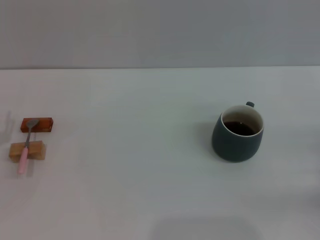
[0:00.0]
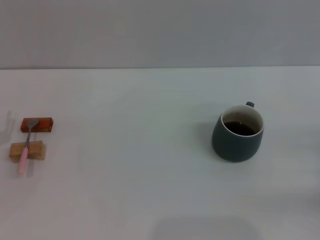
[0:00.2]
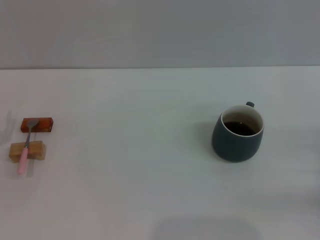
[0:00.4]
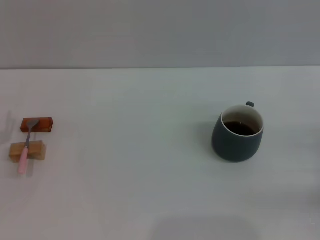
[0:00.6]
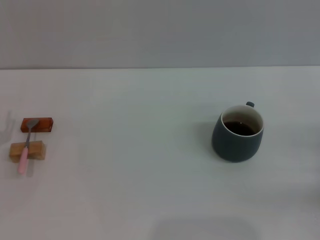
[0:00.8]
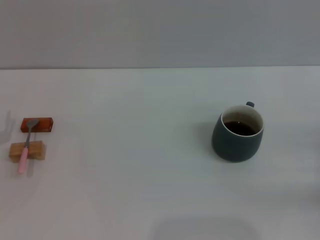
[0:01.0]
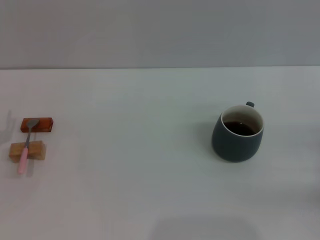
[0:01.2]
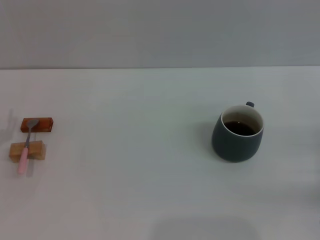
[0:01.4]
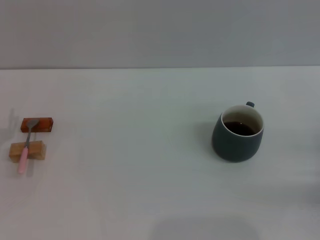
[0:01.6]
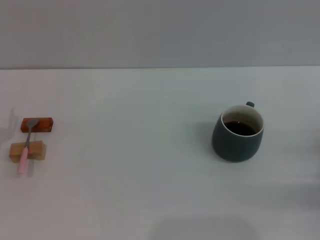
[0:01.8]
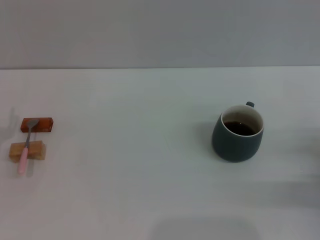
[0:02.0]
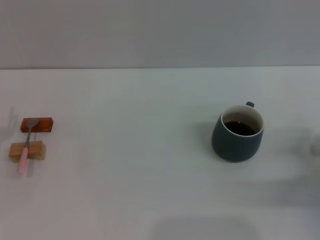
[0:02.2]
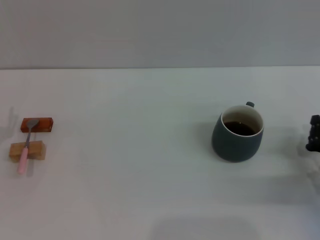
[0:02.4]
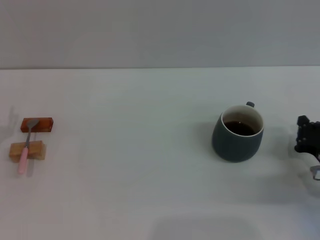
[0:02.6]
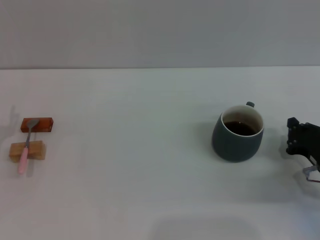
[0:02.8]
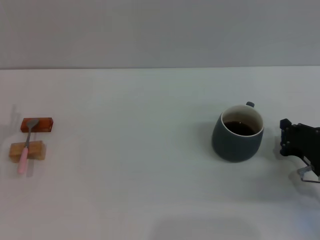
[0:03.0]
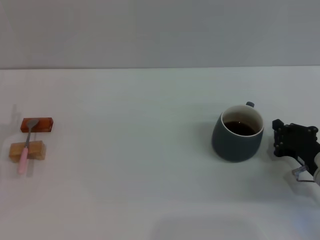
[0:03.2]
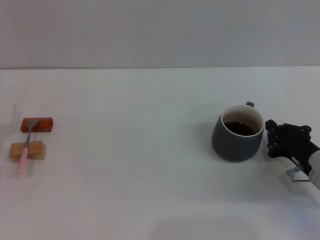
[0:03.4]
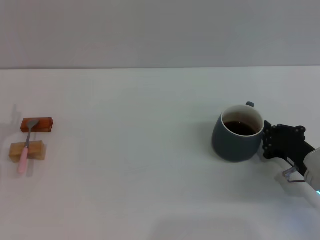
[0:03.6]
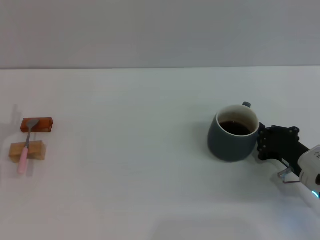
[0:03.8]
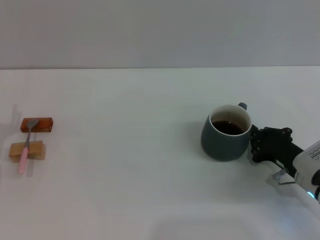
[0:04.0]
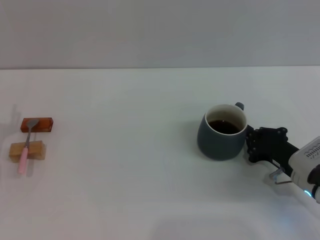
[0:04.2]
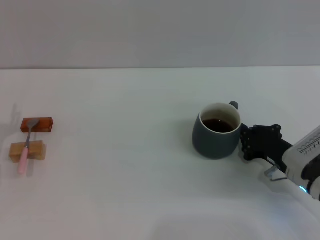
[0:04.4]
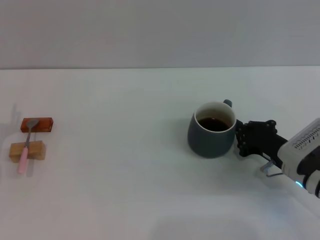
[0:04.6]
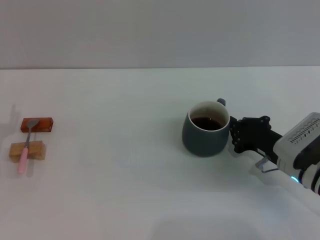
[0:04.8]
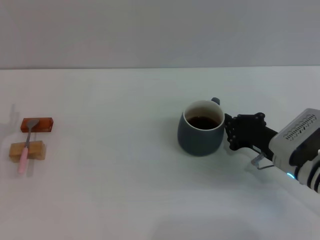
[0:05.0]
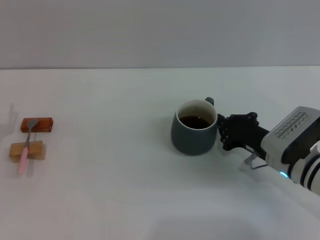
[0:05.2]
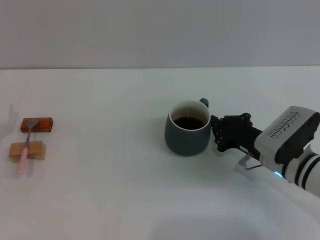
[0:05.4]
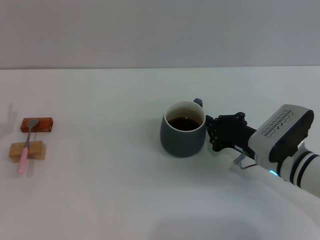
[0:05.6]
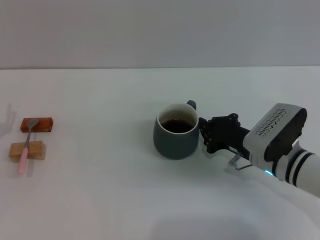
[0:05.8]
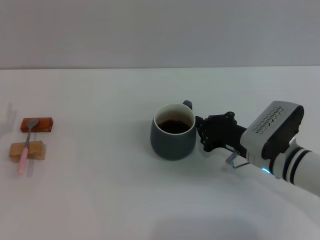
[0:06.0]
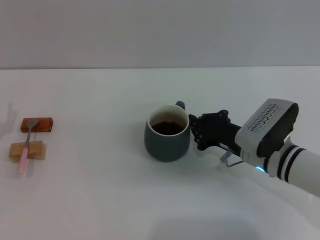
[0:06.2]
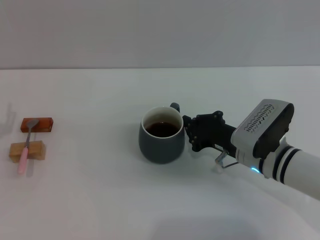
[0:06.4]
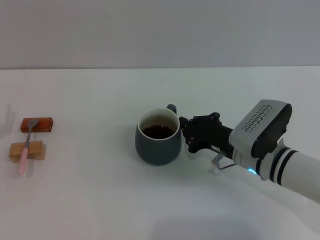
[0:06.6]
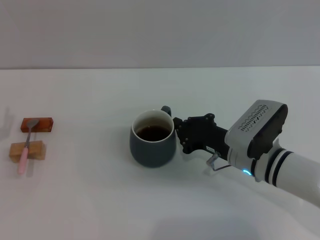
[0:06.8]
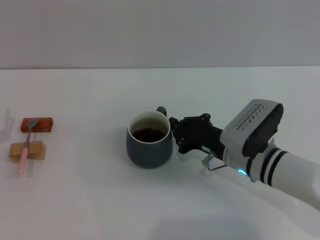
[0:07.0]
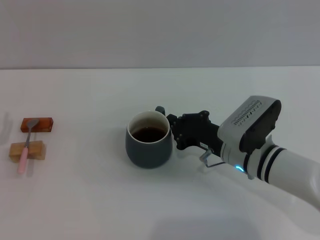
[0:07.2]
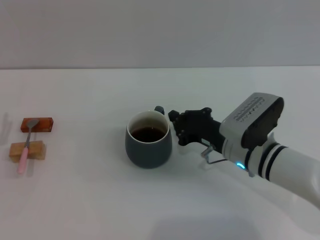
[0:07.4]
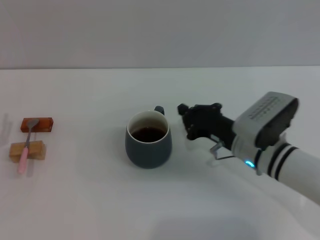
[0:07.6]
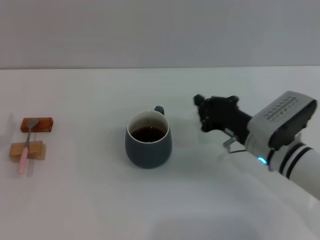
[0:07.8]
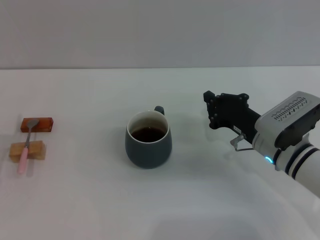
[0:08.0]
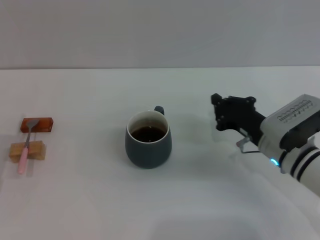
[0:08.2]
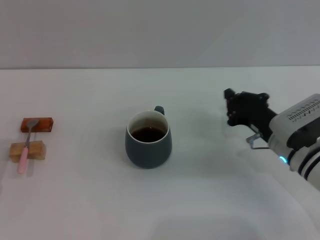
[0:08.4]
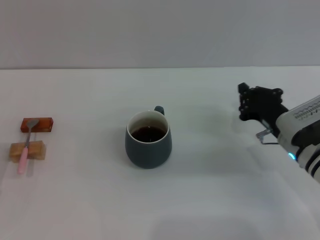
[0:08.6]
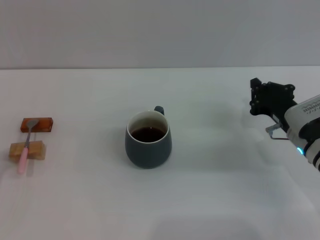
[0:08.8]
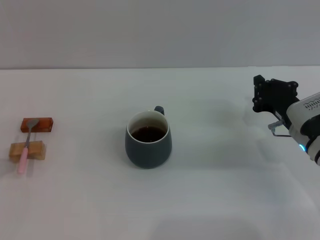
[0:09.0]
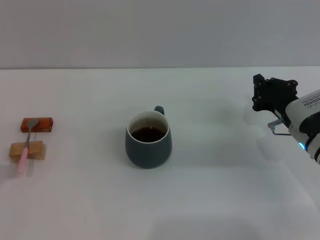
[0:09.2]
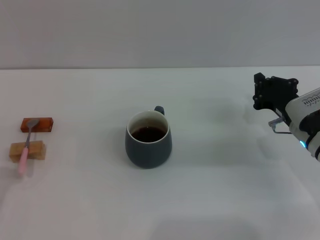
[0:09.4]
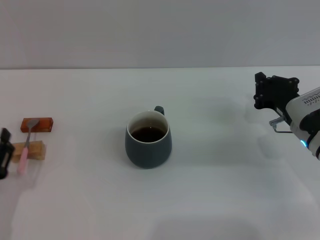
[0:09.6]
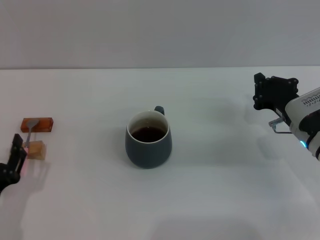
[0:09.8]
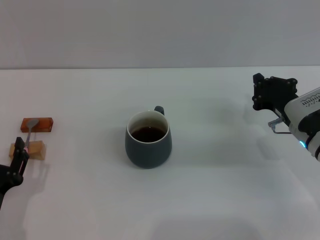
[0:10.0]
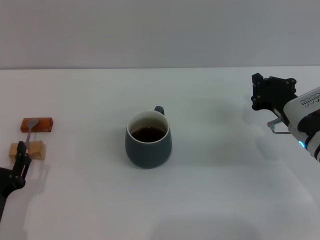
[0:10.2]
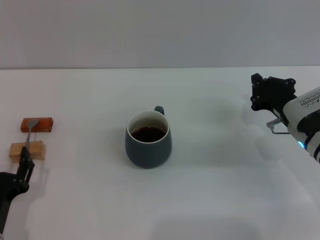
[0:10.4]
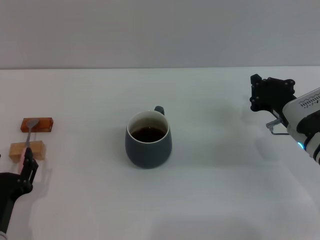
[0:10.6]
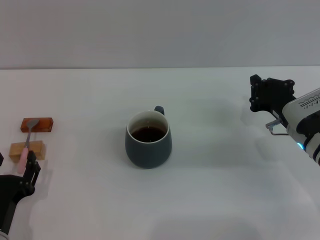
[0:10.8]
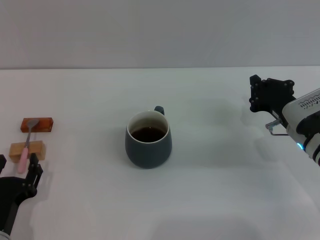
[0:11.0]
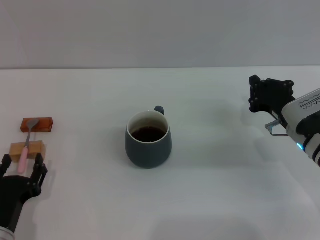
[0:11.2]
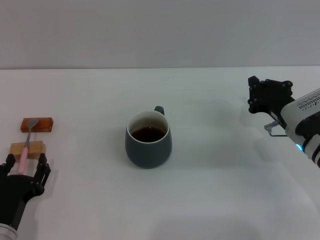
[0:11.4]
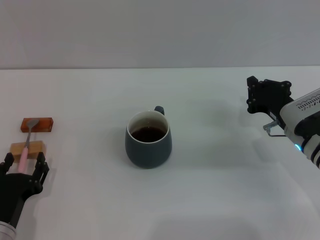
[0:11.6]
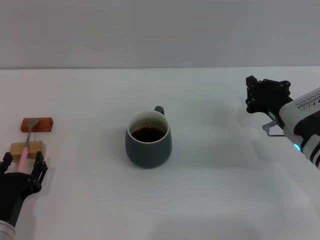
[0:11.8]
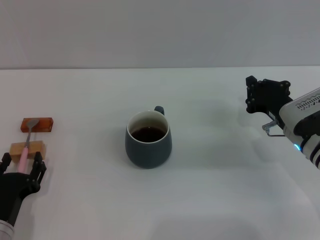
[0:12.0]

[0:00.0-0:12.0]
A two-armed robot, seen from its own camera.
Task of the whole recording: Move the grey cup to the center, lift the pink spoon, stir it three times in the cup, and put the spoon into the cup.
Step, 0:00.0 to 0:08.6: Move the cup with coffee to the center of view with the right gripper.
0:01.6 to 0:03.0: The right gripper goes roughly 10 cm to the left, and closes.
0:03.0 to 0:04.4: The grippers make only small movements.
0:04.4 to 0:06.0: The right gripper goes roughly 5 cm to the left.
0:06.0 to 0:07.6: The grippers stay close to where they were, moving slightly.
0:07.6 to 0:09.0: The right gripper goes about 10 cm to the right. The left gripper heads backward, covering some 5 cm.
0:09.0 to 0:10.4: The left gripper shifts about 5 cm to the right.
0:10.4 to 0:12.0: There are only small adjustments of the grippers.

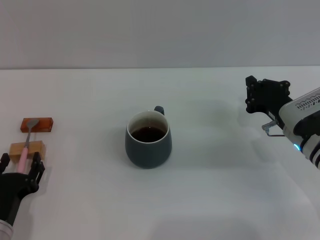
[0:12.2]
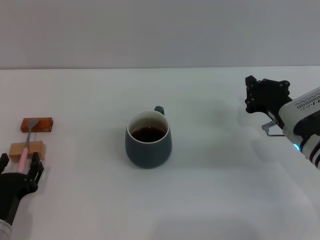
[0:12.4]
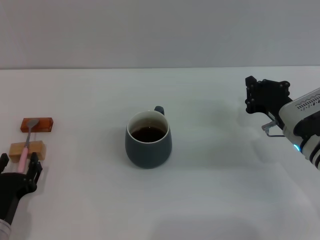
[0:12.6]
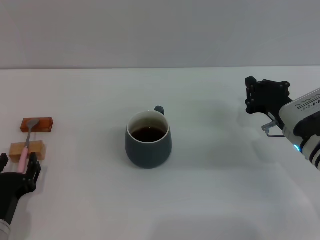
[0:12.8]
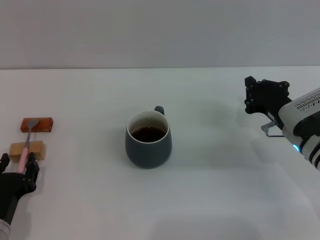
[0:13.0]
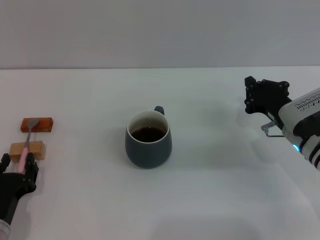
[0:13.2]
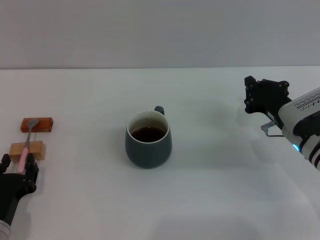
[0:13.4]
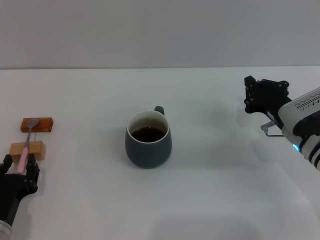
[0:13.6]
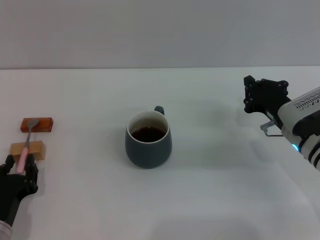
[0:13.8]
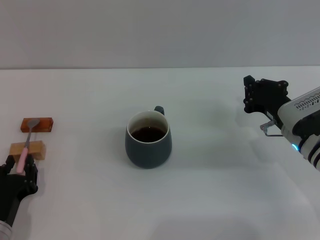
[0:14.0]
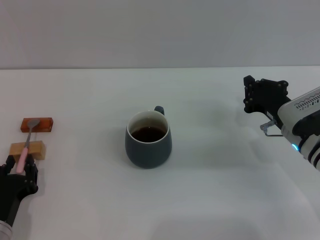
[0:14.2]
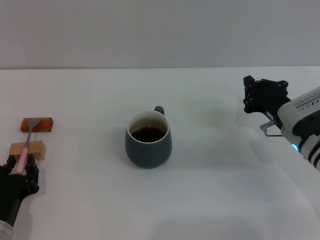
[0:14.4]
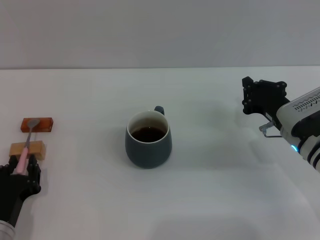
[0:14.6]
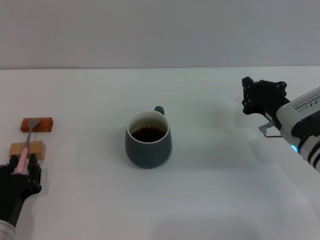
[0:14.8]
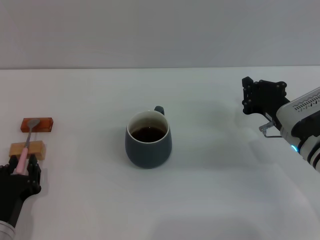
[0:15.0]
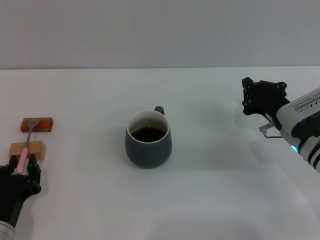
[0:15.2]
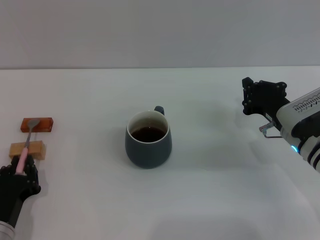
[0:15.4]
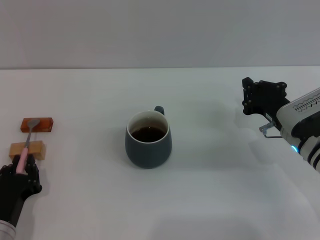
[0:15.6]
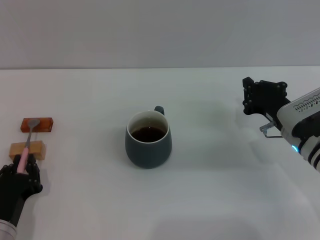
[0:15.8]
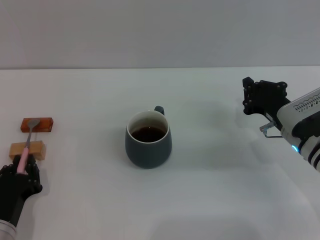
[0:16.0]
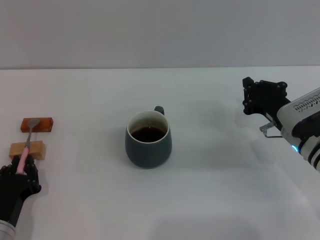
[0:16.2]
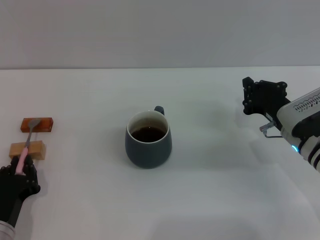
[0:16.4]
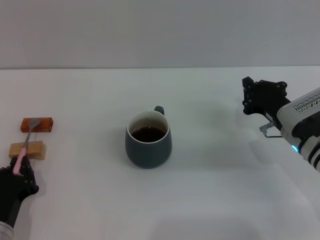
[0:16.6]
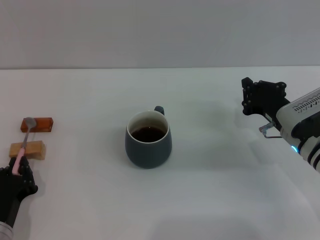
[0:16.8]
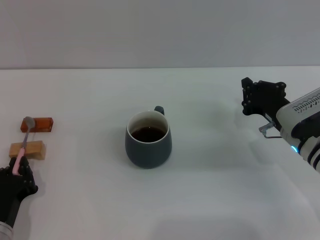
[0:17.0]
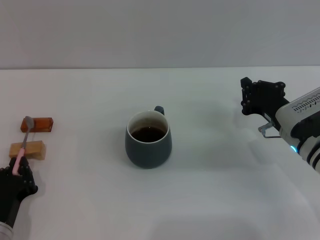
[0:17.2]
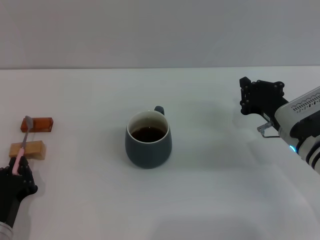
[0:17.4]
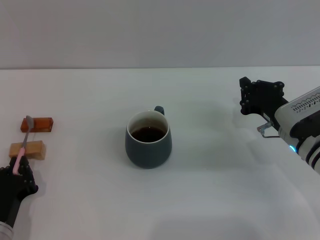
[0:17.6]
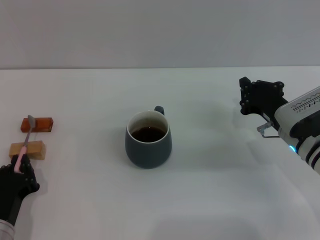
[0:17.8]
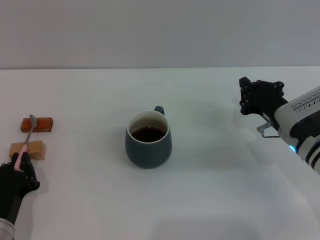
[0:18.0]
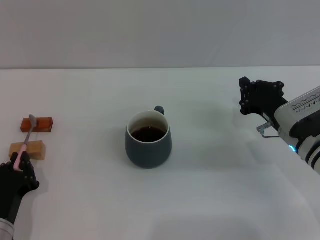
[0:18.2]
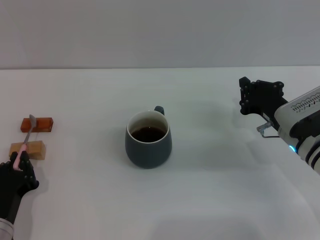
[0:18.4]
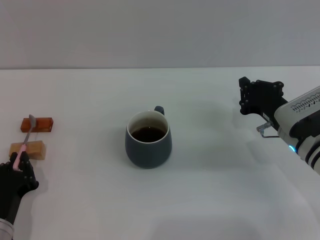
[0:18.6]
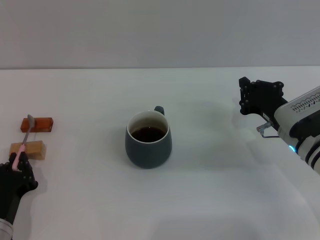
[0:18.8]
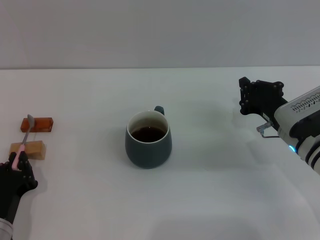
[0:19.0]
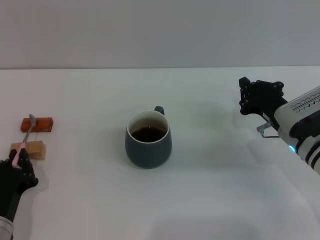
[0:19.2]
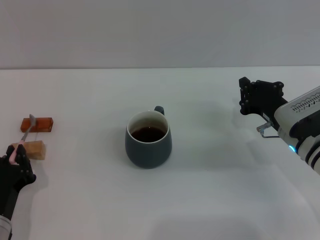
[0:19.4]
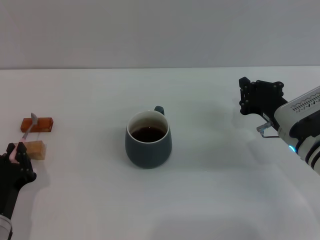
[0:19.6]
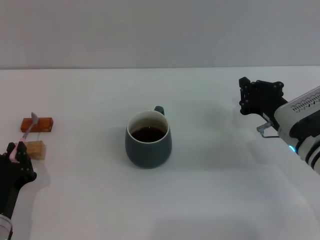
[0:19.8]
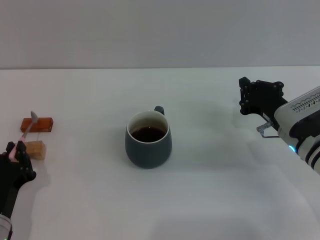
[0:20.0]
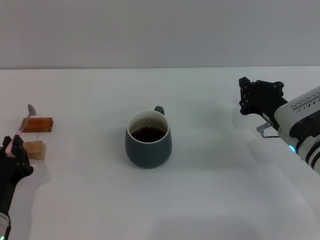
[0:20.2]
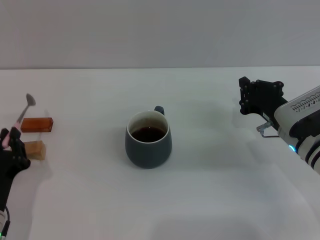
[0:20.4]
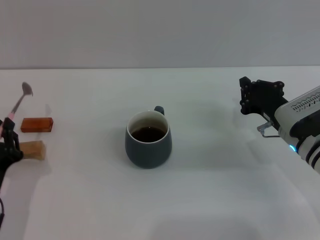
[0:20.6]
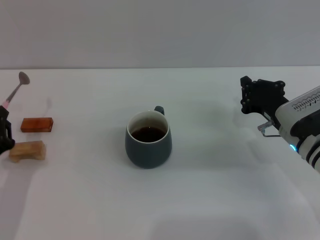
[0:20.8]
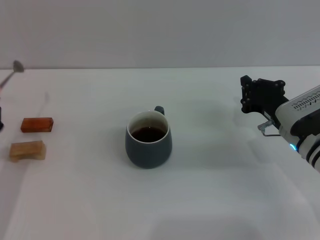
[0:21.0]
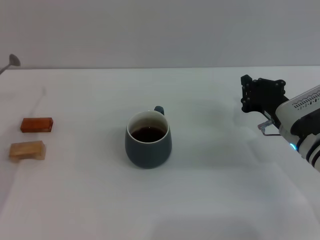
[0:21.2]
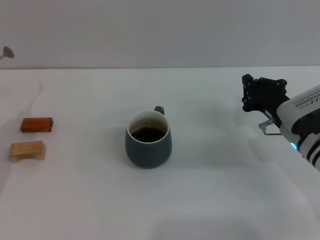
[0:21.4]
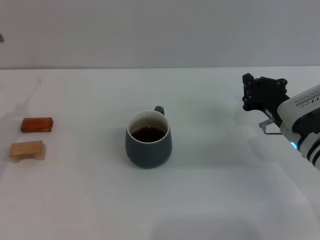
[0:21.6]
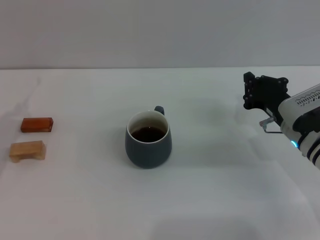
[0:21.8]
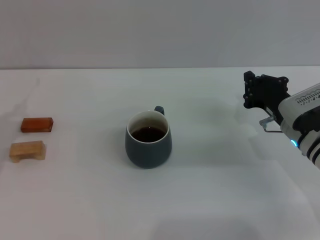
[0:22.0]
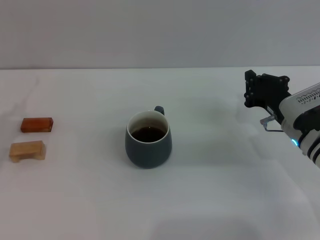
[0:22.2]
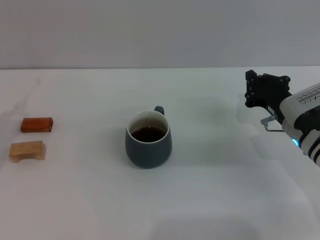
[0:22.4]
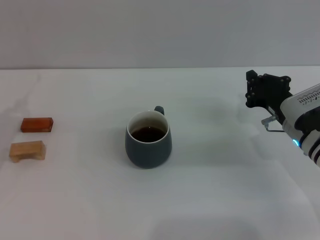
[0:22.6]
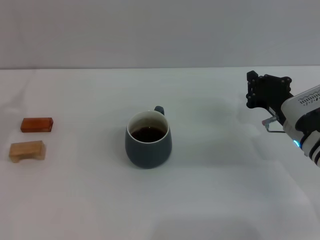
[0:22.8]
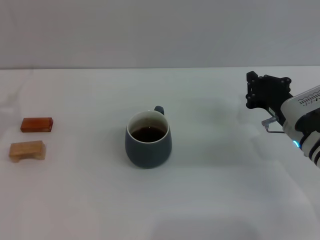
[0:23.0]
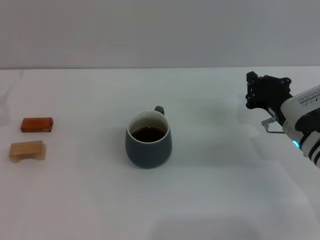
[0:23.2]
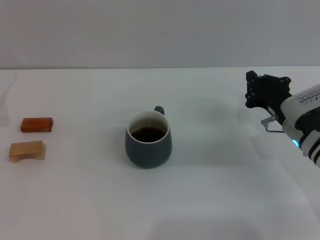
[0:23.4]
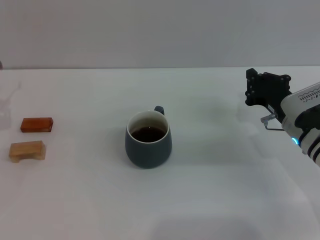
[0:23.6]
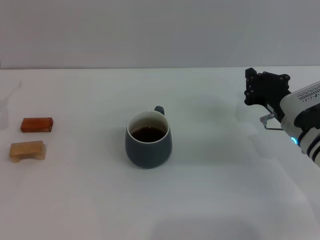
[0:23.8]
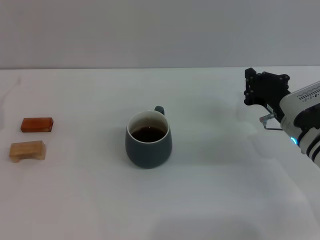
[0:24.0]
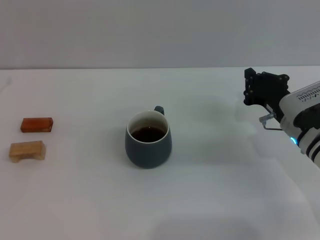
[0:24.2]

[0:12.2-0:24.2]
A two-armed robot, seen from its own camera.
Task of the whole recording: Move the grey cup to the center, lift the pink spoon, stir it three times in the cup, and put the spoon into the cup.
Step, 0:12.2 to 0:20.8: Pick up the spoon with the left gripper.
0:12.2 to 0:18.2: Neither gripper changes place.
0:18.2 to 0:19.8: Both grippers stay about where they are.
0:19.8 to 0:21.2: The left gripper moves upward and to the left, some 10 cm.
